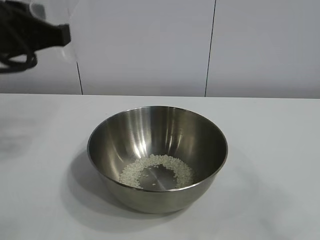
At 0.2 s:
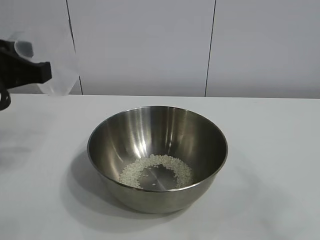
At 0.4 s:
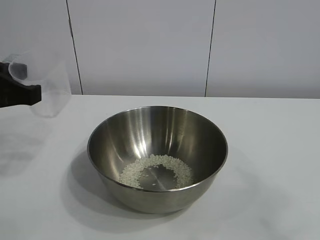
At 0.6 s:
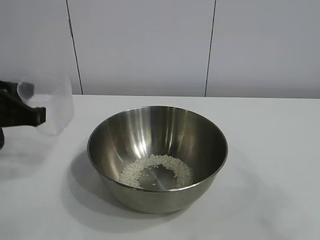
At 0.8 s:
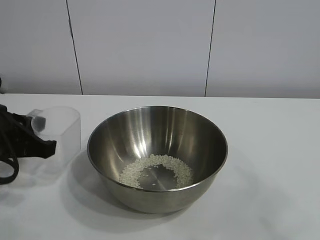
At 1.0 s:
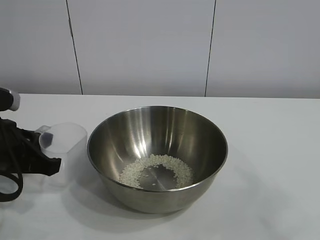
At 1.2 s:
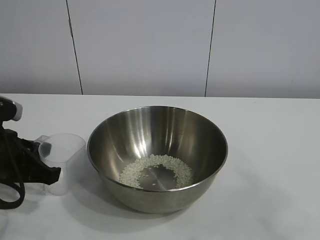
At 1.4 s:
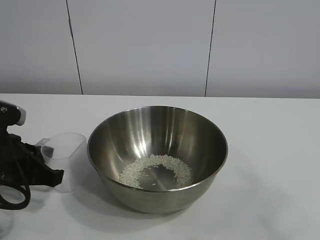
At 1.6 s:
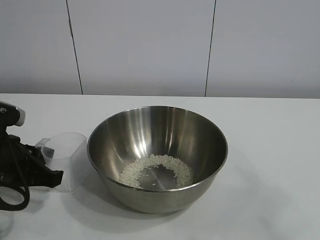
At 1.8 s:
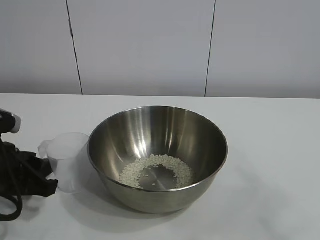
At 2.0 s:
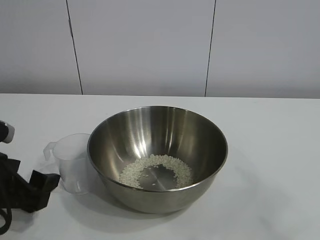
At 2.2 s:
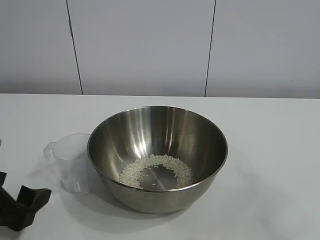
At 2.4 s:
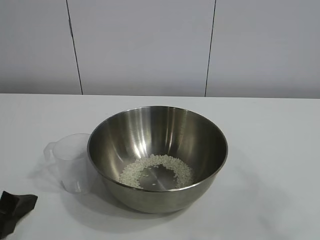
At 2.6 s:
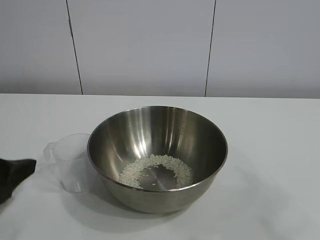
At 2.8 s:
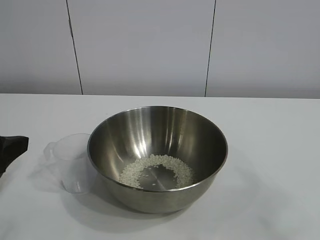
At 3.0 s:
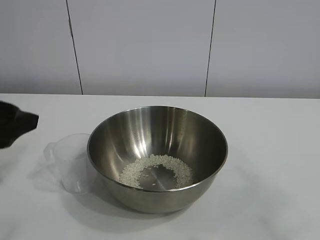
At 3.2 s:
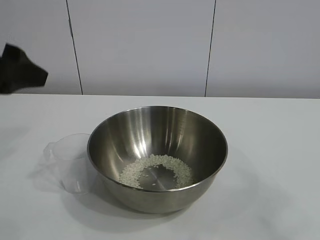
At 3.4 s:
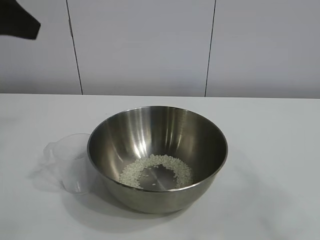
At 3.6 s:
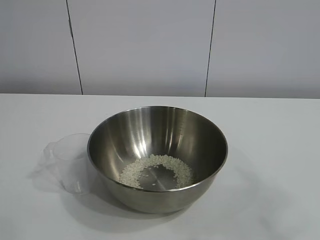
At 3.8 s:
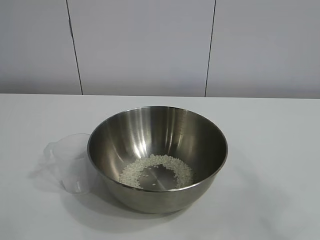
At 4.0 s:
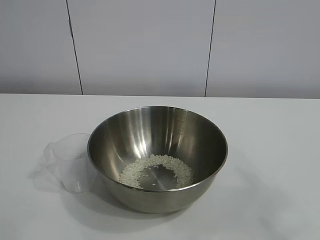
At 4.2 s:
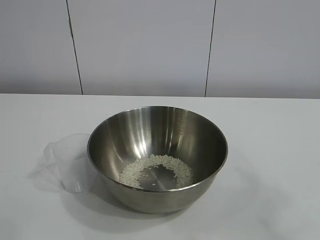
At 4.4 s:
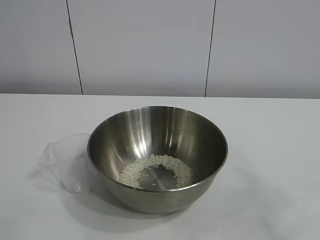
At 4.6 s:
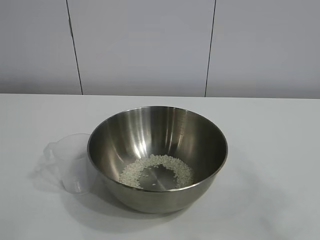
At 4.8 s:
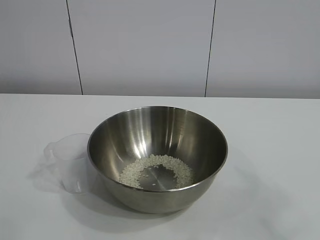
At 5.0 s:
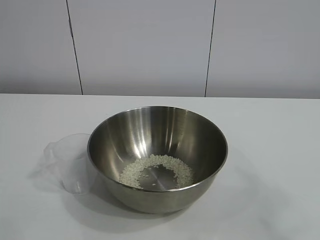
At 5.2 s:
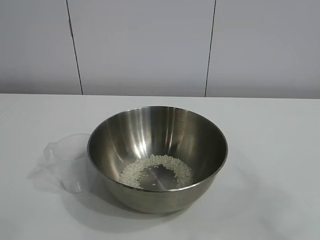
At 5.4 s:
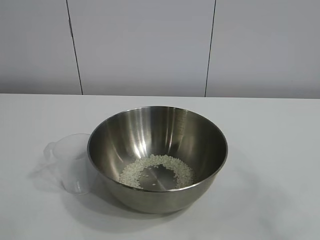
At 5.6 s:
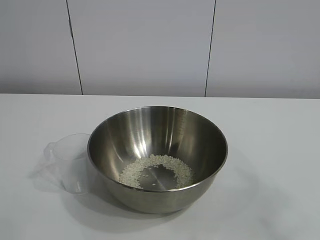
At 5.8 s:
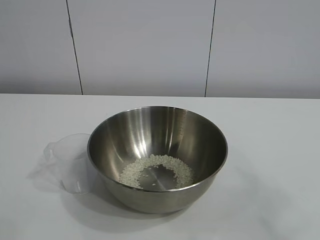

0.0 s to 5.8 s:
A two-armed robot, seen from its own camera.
Task of the whole recording: the right gripper grasp the rice container and place it in the center of the table, the left gripper grasp the rice scoop and pour the rice into the rice container.
Step, 0.0 to 2.0 s: Place the cup on the table with the left gripper.
